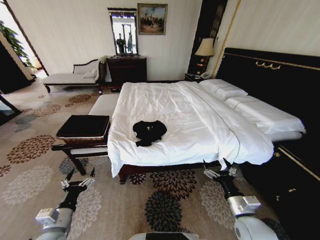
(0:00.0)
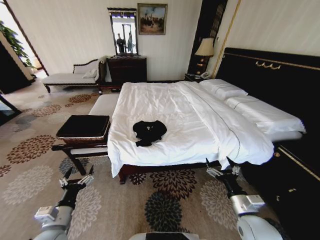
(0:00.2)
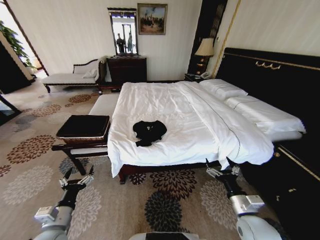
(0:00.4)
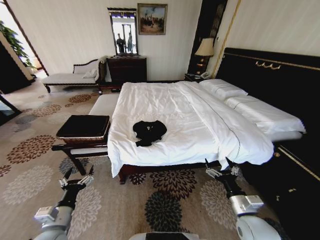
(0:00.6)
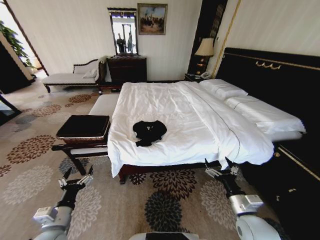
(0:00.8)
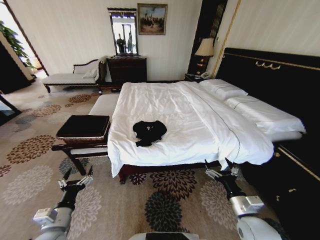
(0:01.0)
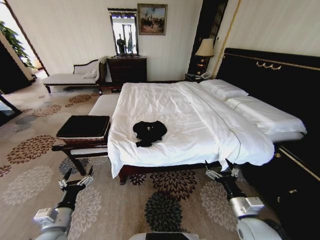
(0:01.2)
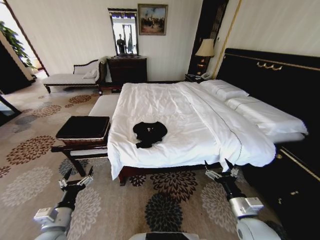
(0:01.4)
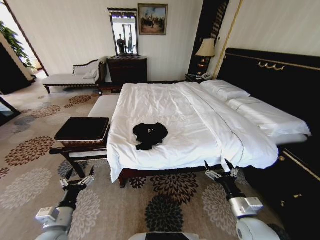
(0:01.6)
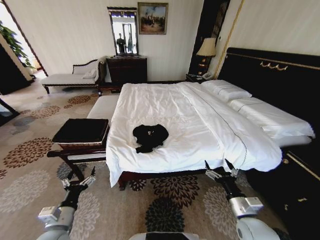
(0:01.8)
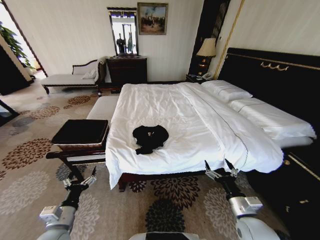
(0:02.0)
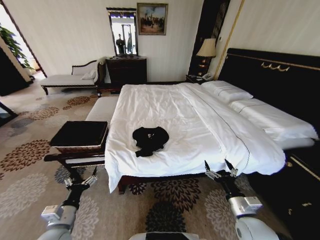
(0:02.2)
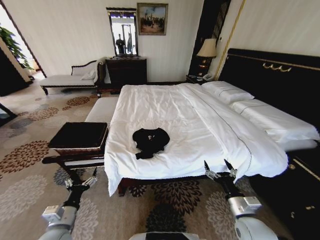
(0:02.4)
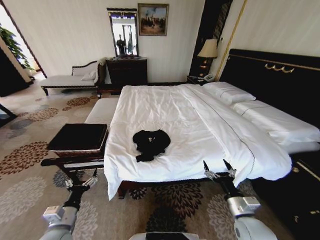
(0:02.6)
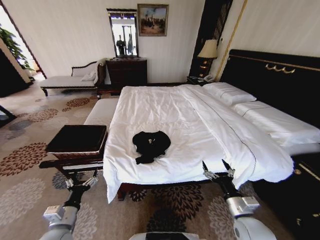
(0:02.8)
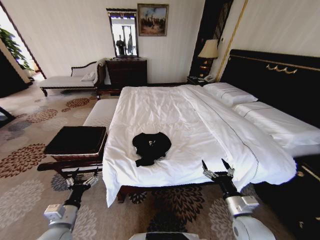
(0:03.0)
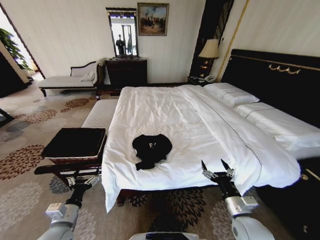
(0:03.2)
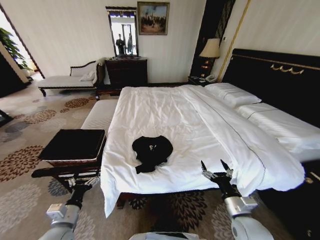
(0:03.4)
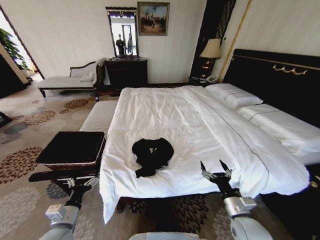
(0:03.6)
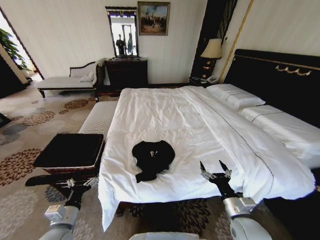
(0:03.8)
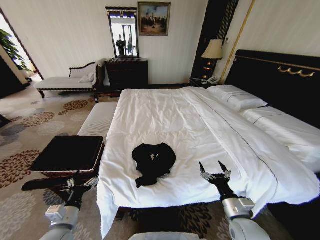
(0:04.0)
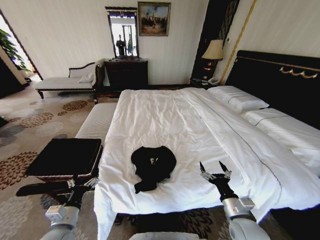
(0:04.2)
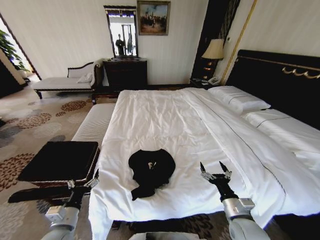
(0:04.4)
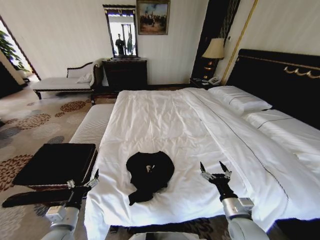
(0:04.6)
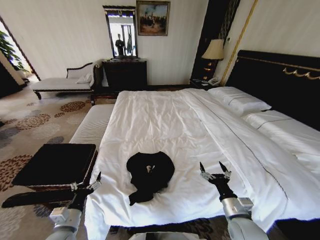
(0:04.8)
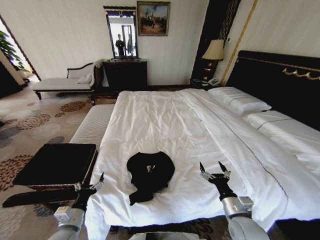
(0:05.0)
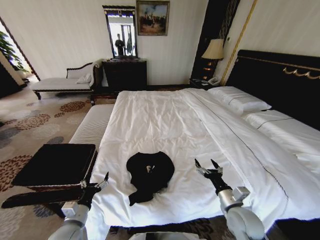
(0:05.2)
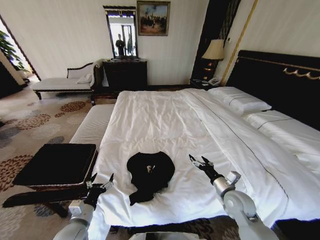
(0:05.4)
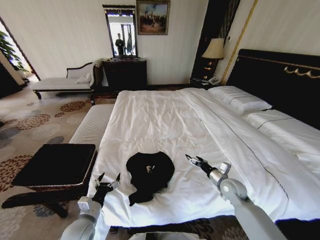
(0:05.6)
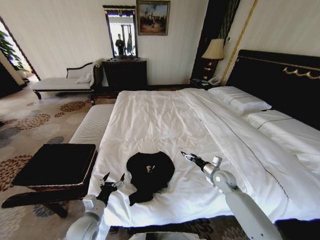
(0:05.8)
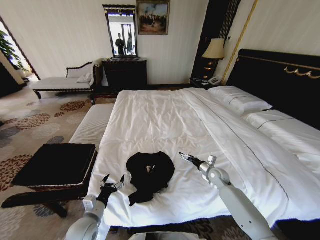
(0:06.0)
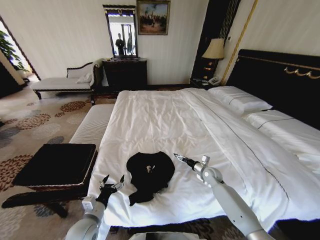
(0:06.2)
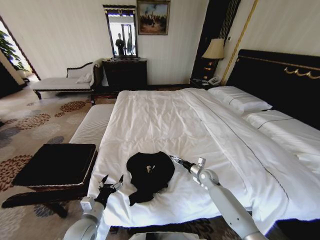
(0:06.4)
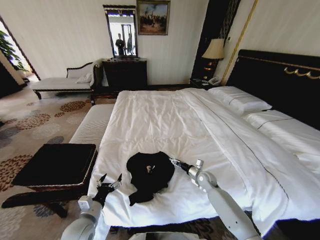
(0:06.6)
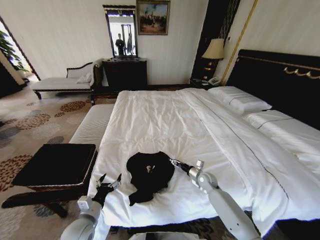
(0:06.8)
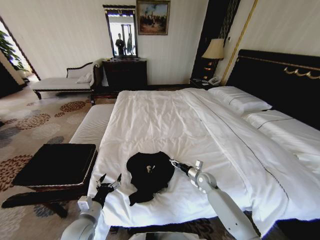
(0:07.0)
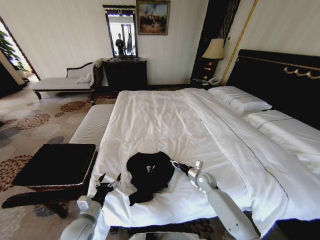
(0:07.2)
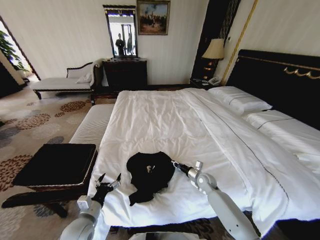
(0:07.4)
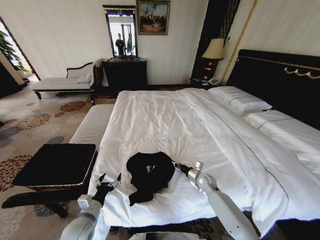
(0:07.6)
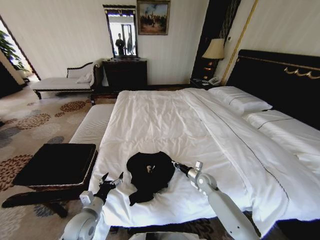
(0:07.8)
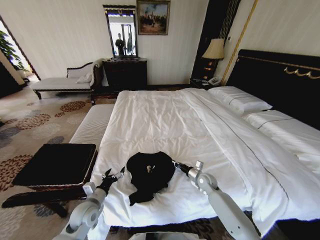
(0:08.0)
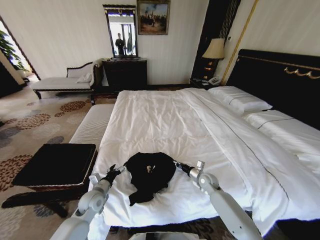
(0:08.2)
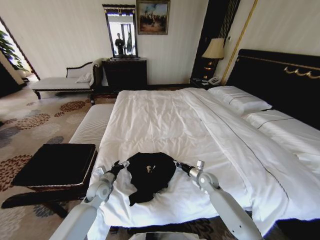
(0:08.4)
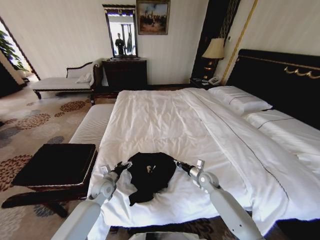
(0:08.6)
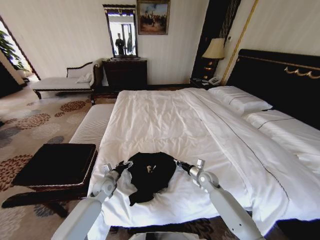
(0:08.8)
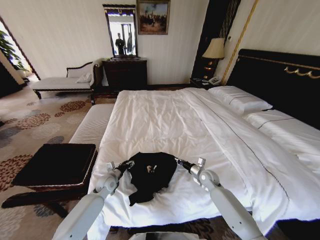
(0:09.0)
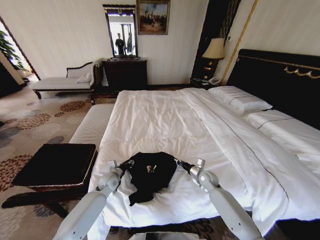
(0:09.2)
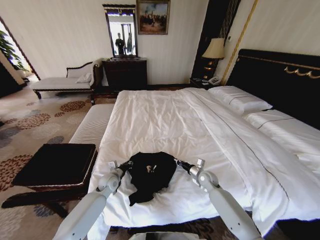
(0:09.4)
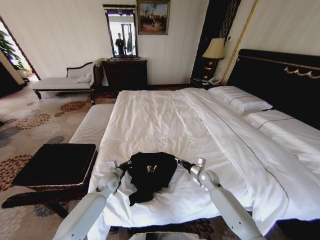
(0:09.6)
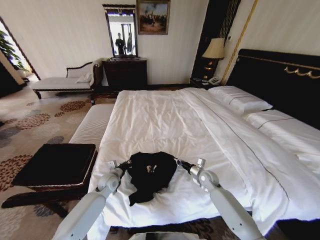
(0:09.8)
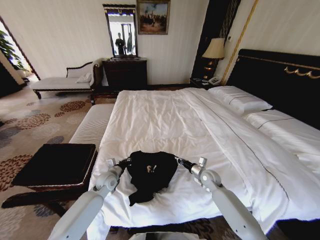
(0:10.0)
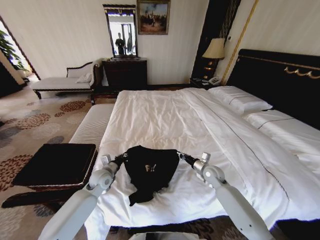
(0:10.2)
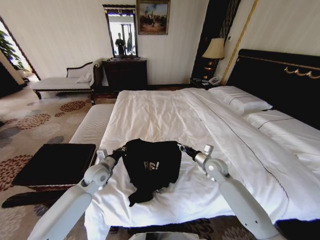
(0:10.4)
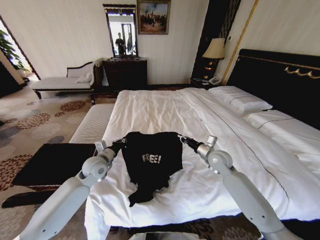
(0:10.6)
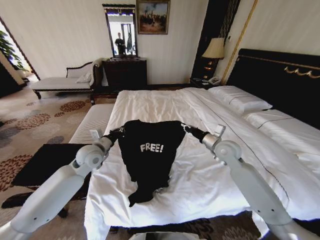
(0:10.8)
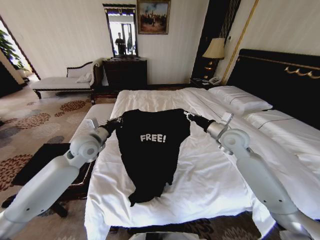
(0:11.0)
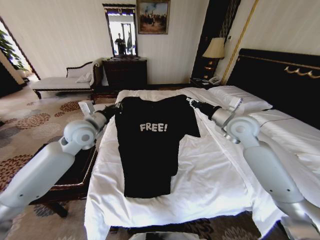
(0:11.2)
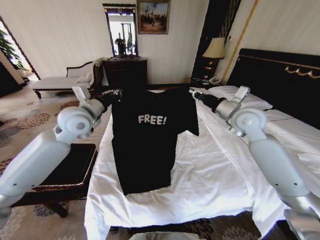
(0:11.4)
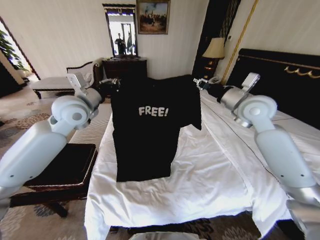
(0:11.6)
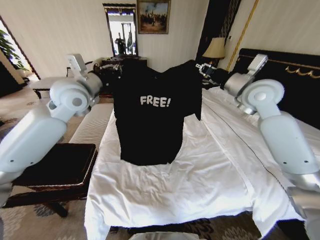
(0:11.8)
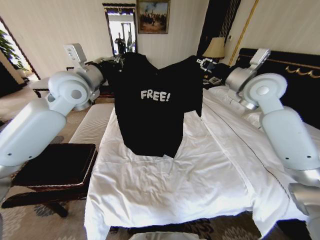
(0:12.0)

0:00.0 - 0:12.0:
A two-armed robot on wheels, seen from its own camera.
Task of the whole recording: Fold the clothes on the bed and place them into the basket.
0:04.4 - 0:06.0: The left gripper is displaced to the right by roughly 5 cm. Meanwhile the right gripper heads forward, covering about 25 cm.
0:06.0 - 0:07.6: The right gripper heads to the left, covering about 5 cm, and closes up.
0:07.6 - 0:09.0: The left gripper is displaced forward by approximately 20 cm.
0:09.0 - 0:10.4: Both grippers move upward, some 10 cm. The left gripper closes.
0:10.4 - 0:12.0: Both grippers move upward, some 35 cm.

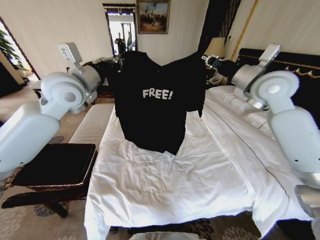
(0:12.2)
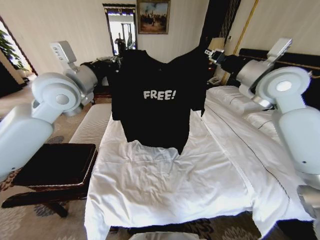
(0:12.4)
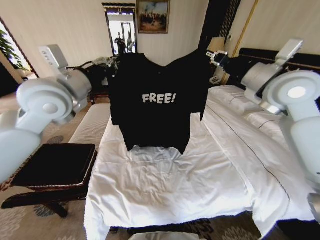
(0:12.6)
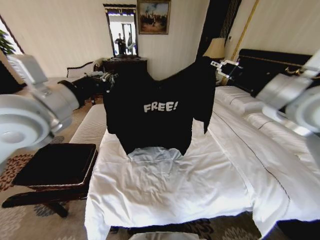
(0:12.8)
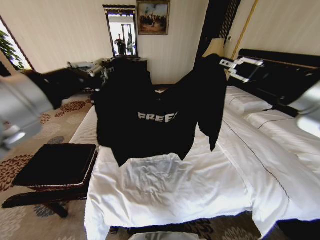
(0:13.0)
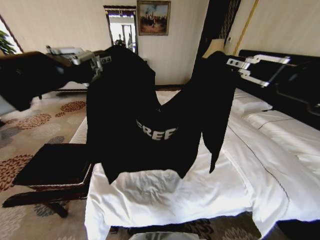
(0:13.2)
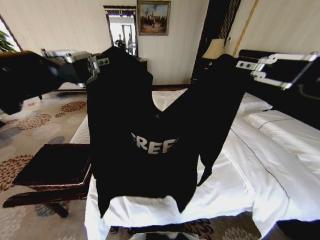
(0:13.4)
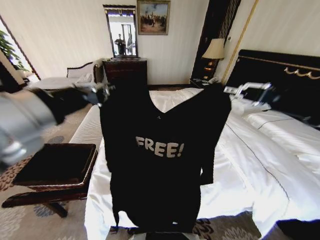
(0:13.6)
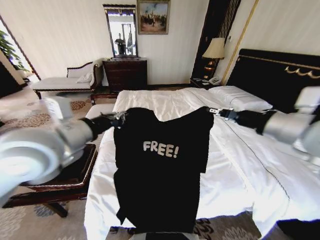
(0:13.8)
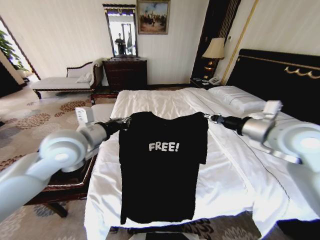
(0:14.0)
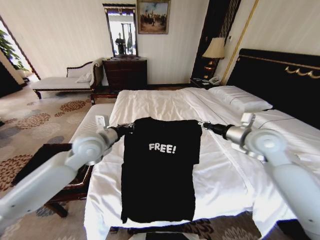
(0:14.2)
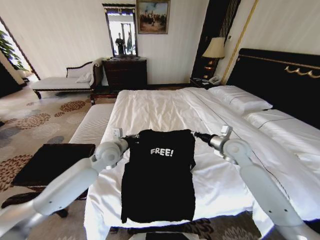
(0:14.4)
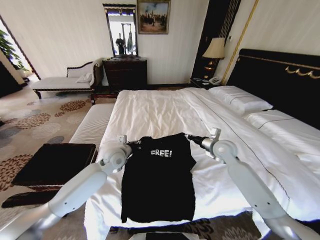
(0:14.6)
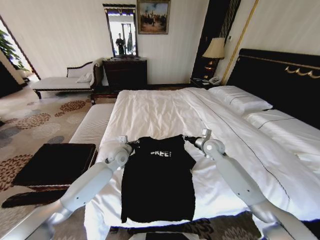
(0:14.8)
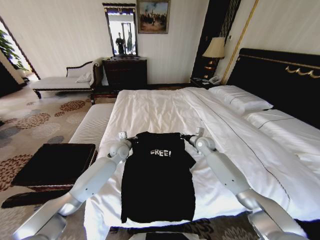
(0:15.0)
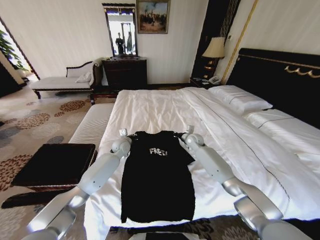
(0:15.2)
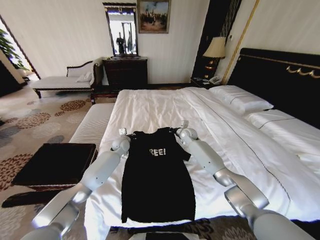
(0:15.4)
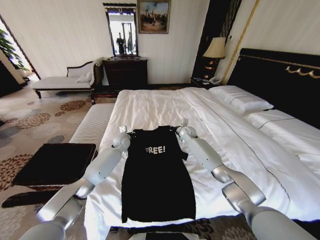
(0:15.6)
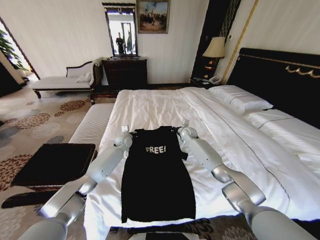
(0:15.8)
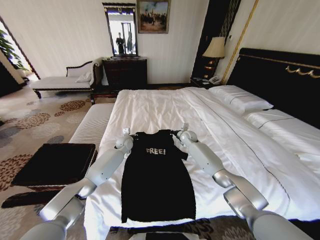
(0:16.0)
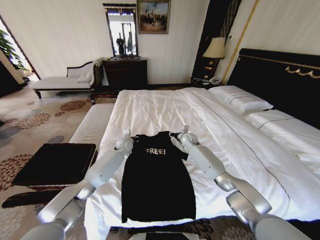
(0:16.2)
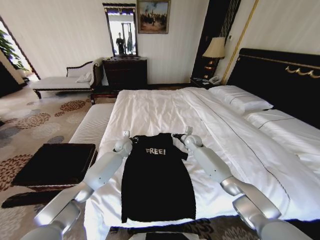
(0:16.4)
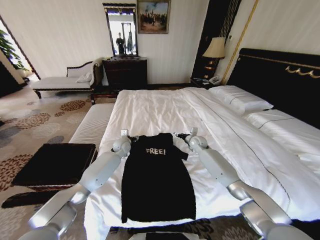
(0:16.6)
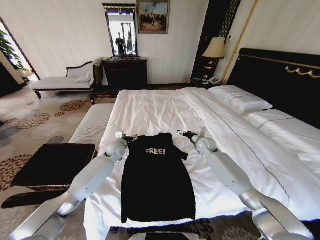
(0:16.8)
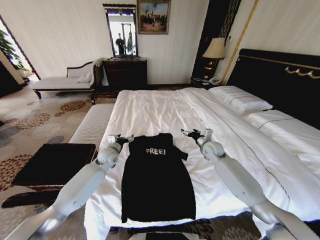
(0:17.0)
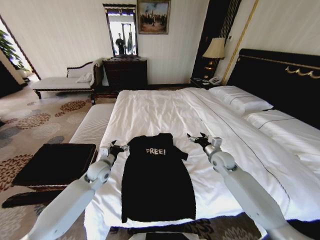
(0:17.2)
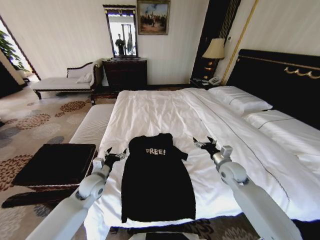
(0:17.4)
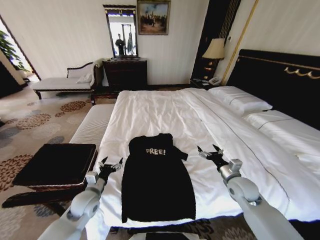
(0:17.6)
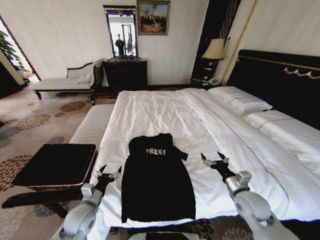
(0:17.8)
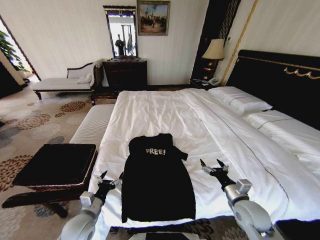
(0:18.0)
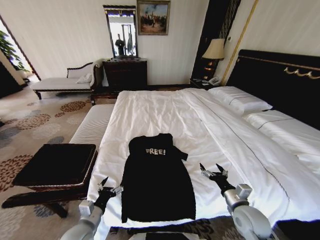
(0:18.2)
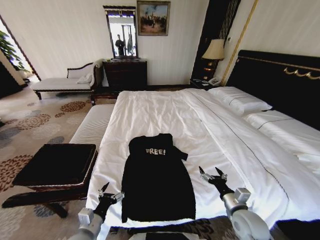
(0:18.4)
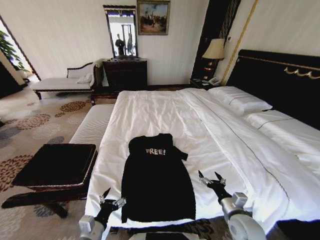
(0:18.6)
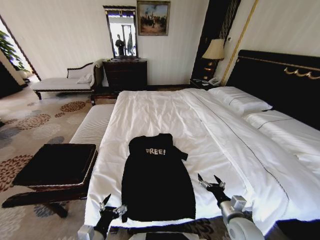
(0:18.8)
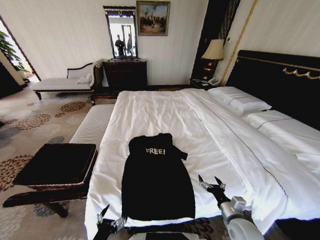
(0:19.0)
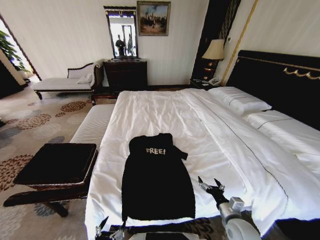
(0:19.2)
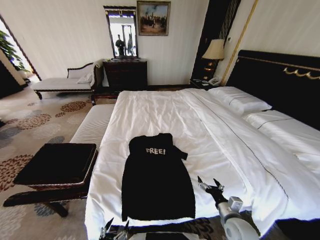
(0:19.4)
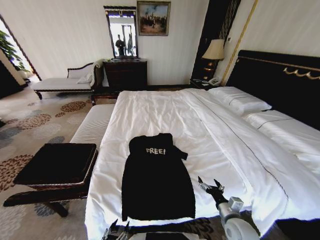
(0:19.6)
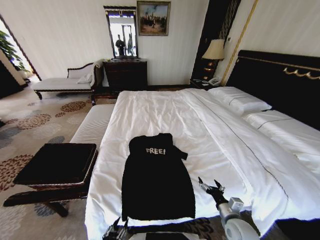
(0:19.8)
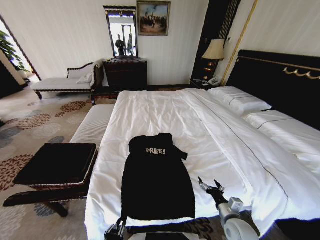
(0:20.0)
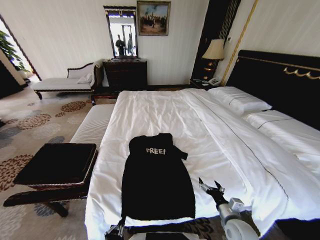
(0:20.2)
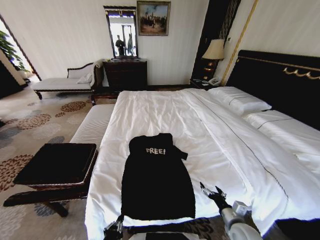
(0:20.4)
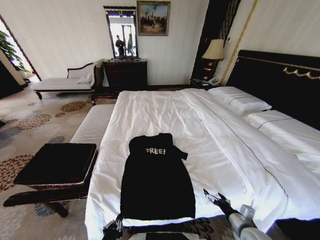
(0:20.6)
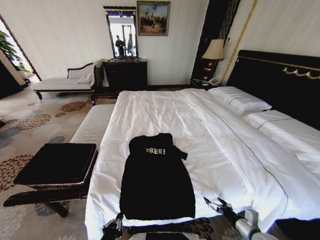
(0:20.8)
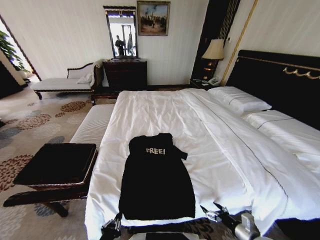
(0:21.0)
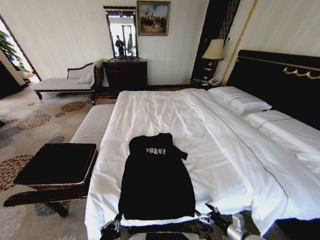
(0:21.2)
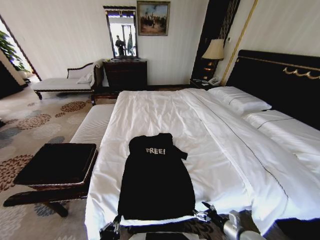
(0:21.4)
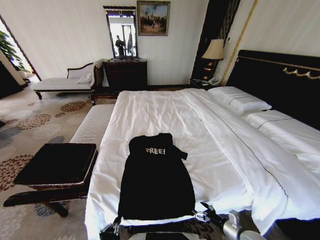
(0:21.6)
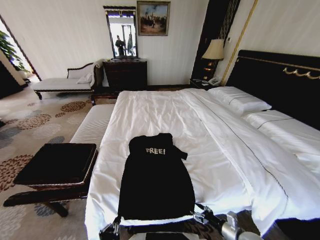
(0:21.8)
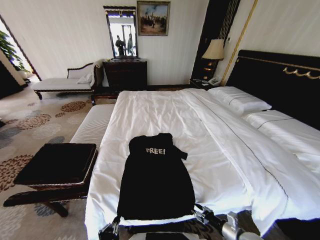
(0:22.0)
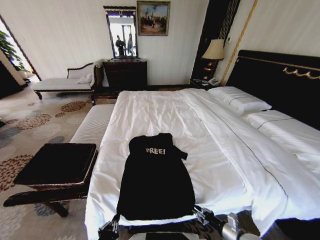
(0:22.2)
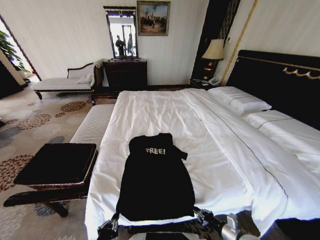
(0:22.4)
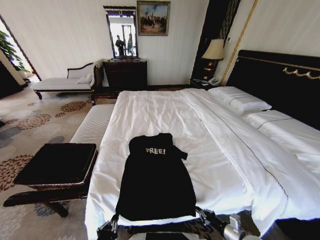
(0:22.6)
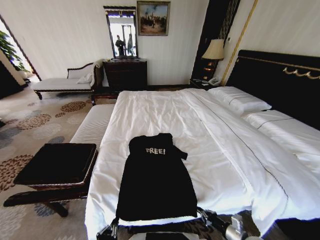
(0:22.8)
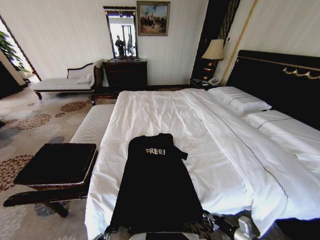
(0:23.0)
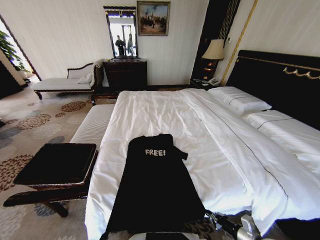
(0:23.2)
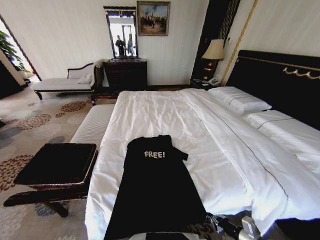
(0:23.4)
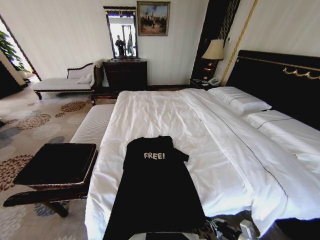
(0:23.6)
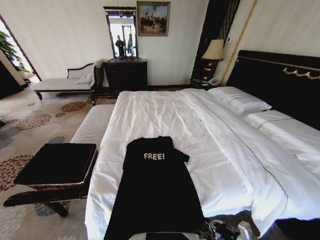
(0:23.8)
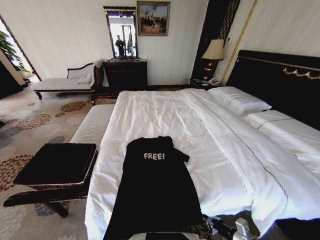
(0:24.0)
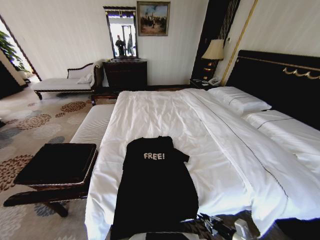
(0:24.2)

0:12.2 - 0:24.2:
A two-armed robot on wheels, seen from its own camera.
Task of the whole recording: Fold the clothes on the bed and place them into the basket.
0:12.2 - 0:13.8: Both grippers travel together backward, roughly 20 cm.
0:13.8 - 0:15.2: The grippers both shift downward and forward by some 40 cm.
0:15.2 - 0:16.6: The left gripper opens up; the right gripper opens up.
0:16.6 - 0:18.2: Both grippers move backward, some 35 cm. The right gripper opens up, while the left gripper opens.
0:18.2 - 0:19.8: The right gripper heads downward, covering roughly 5 cm; the left gripper goes roughly 15 cm backward, and closes up.
0:19.8 - 0:21.2: The right gripper shifts roughly 5 cm to the right. Meanwhile the left gripper closes its fingers.
0:21.2 - 0:22.6: The right gripper closes up.
0:22.6 - 0:24.2: The left gripper heads backward, covering approximately 10 cm.
